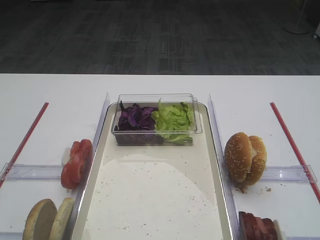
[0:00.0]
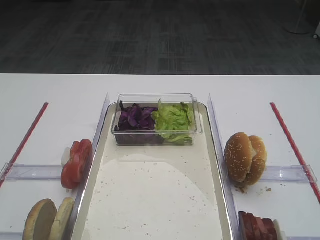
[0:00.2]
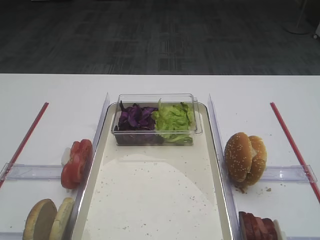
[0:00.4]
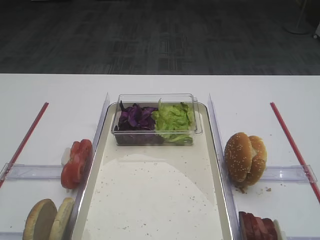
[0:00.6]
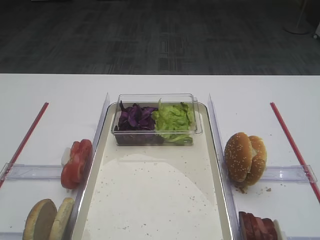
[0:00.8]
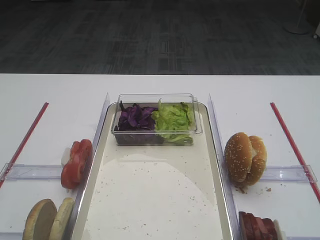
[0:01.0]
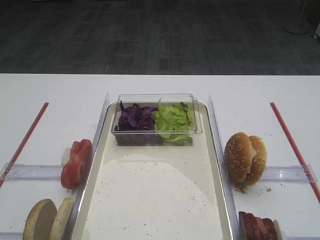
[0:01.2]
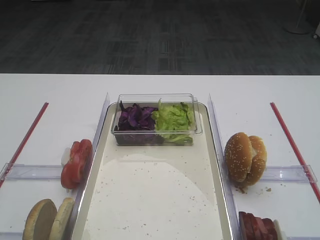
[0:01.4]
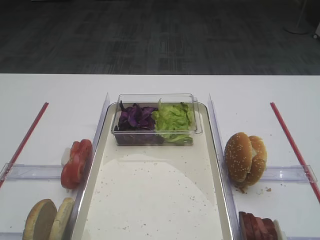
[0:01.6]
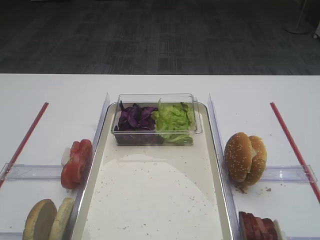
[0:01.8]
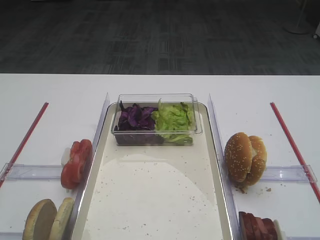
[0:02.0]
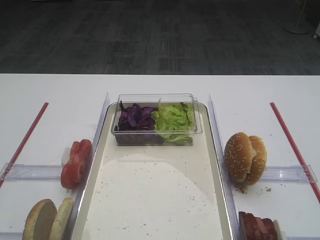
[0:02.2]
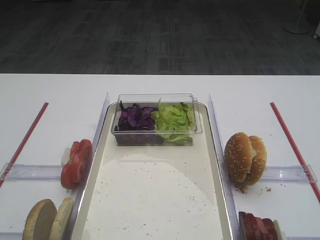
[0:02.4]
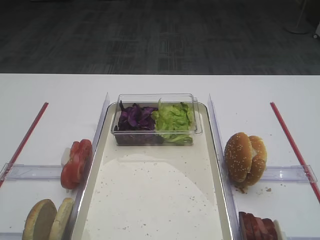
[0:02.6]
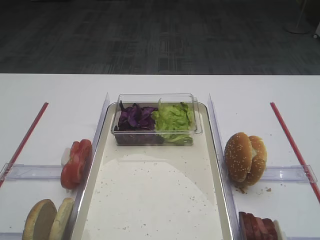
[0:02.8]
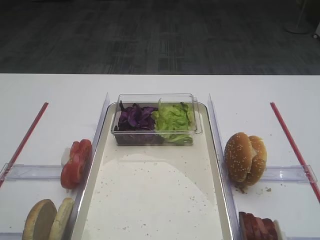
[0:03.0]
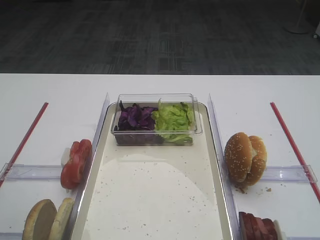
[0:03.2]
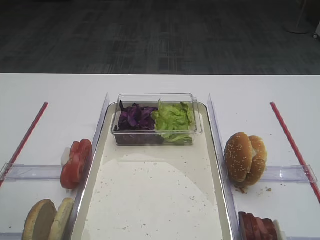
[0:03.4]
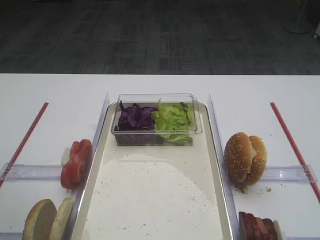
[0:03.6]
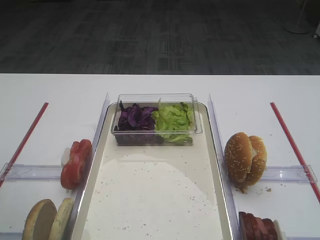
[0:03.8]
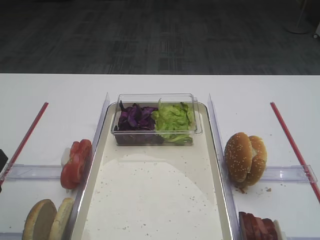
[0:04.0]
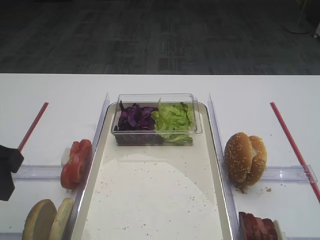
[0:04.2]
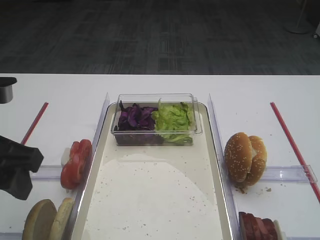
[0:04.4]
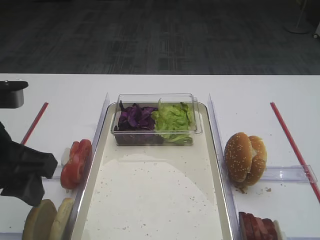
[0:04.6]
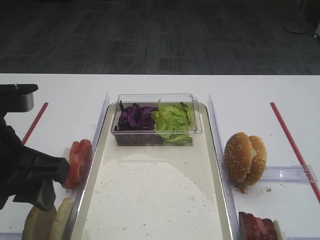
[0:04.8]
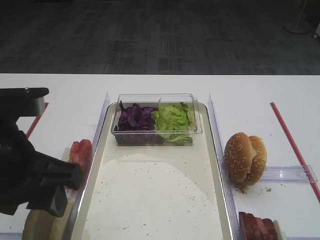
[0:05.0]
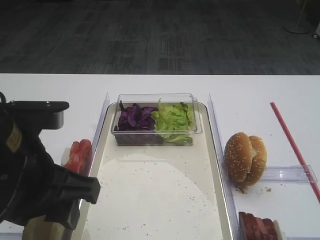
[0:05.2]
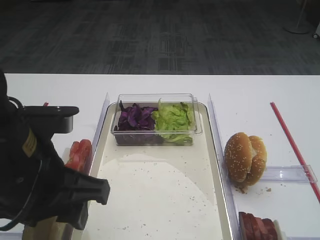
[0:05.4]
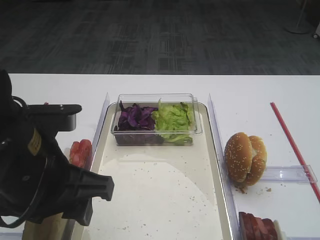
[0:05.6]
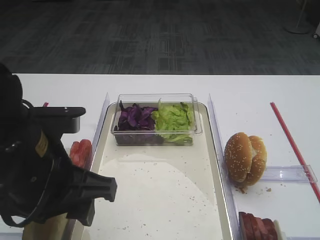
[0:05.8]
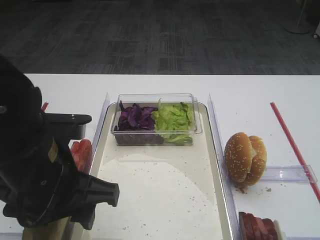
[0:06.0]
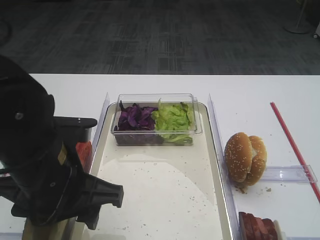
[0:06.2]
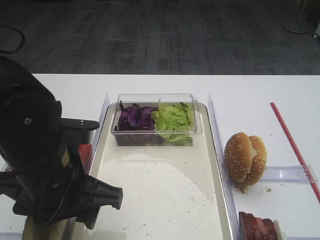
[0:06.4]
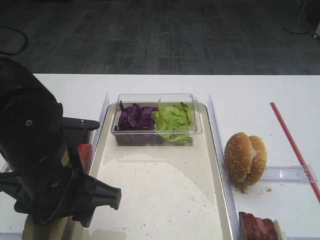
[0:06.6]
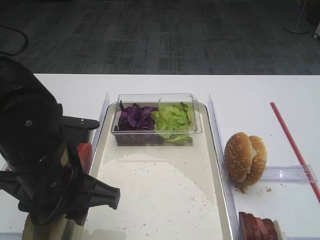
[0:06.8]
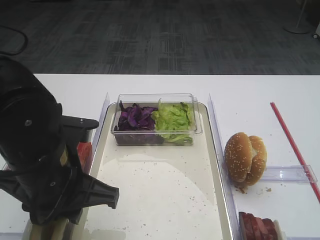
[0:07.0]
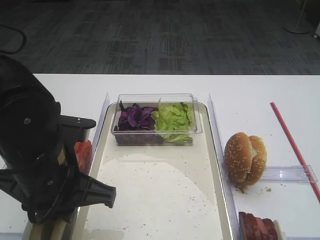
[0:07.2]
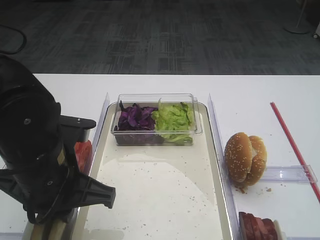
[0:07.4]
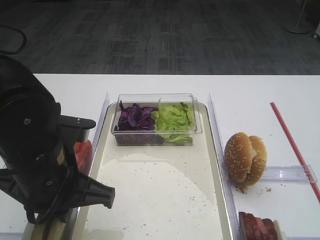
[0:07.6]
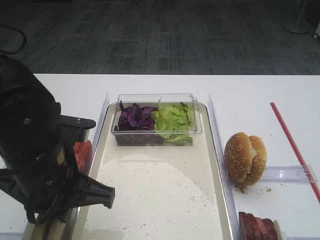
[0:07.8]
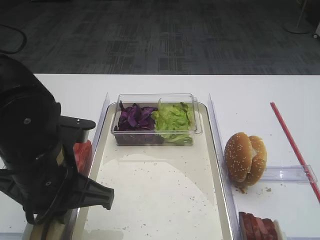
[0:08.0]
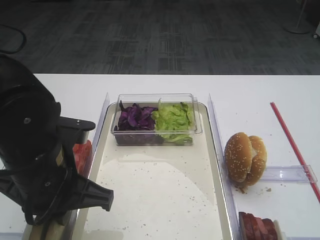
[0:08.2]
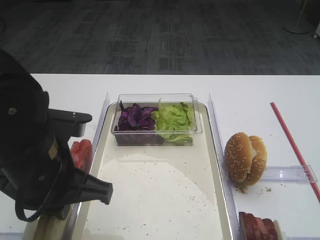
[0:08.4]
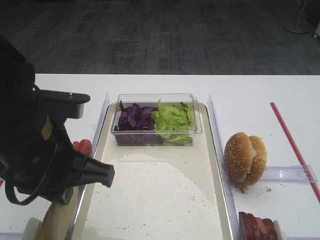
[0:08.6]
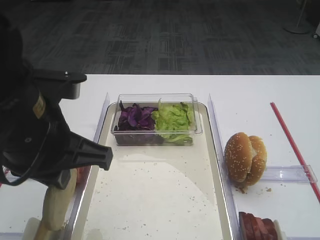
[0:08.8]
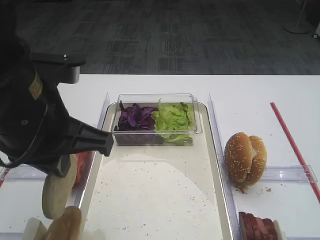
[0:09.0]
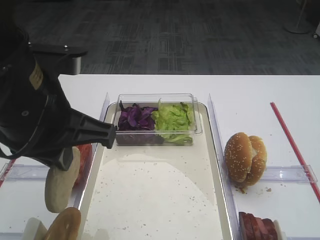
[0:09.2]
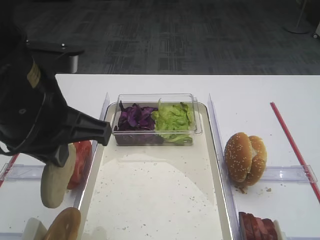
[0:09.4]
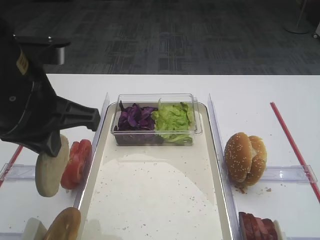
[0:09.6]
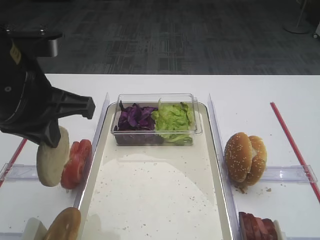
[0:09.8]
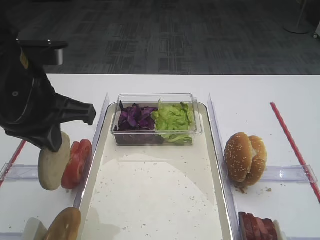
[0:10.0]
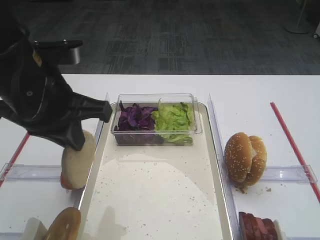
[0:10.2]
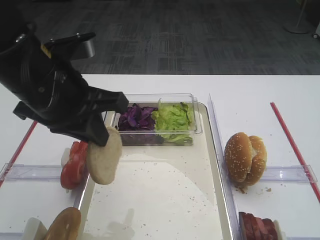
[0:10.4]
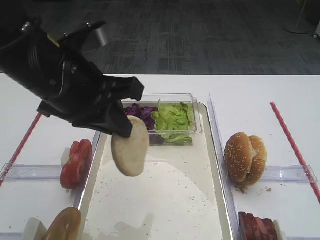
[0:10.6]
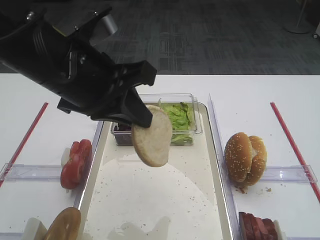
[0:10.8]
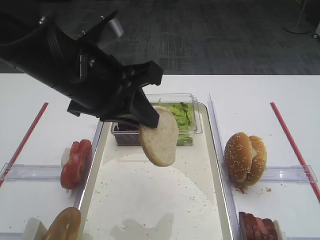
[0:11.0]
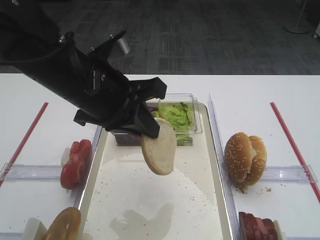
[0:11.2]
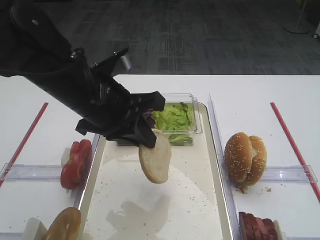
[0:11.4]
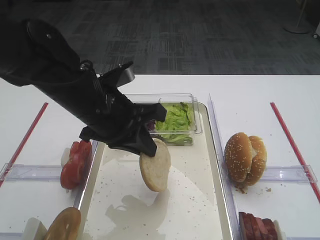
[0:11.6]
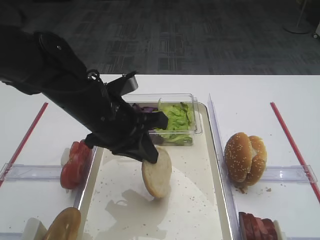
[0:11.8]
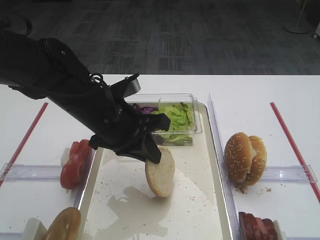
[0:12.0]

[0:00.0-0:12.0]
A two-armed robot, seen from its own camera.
Step, 0:00.0 to 0:08.6: Pick up the bread slice with the left gripper.
0:03.0 to 0:04.4: The left gripper goes some 10 cm to the right and forward.
0:04.4 to 0:06.0: The left gripper is displaced to the right by roughly 10 cm.
0:06.0 to 0:07.6: The left gripper closes.
0:07.6 to 0:09.0: The left gripper goes about 10 cm upward.
0:09.0 to 0:10.4: The grippers stay close to where they were, moving slightly.
0:10.4 to 0:12.0: The left gripper shifts approximately 10 cm downward and to the right.

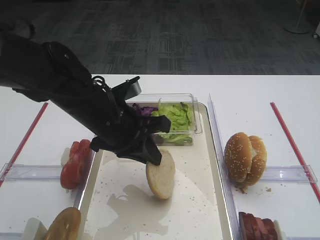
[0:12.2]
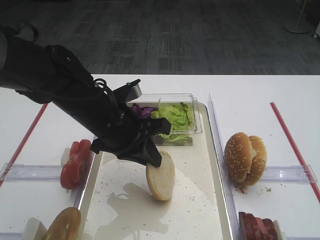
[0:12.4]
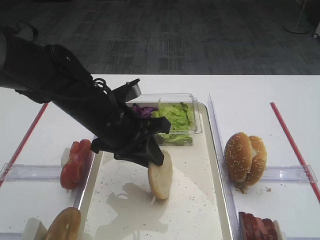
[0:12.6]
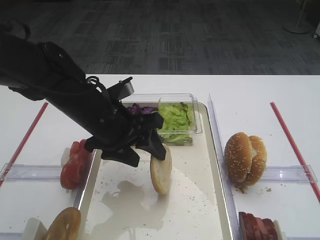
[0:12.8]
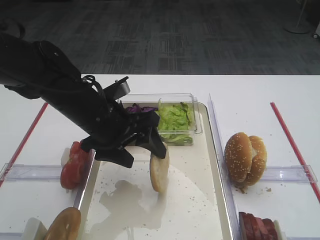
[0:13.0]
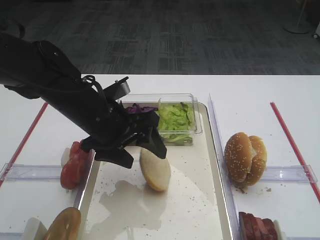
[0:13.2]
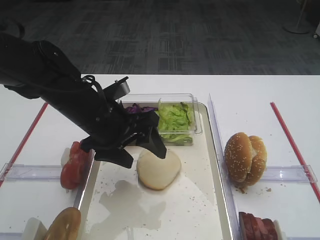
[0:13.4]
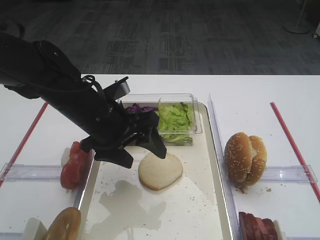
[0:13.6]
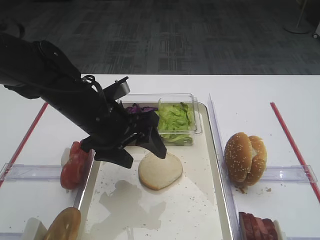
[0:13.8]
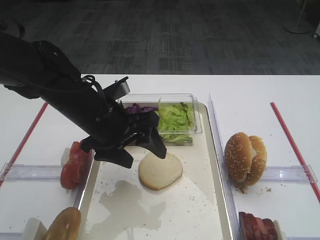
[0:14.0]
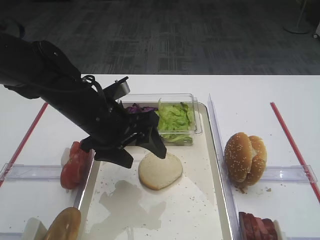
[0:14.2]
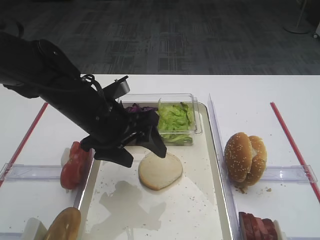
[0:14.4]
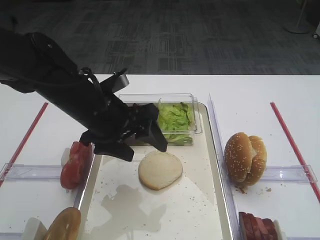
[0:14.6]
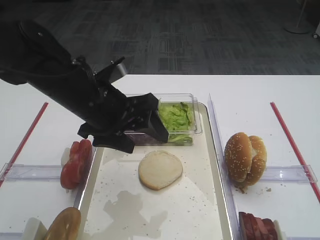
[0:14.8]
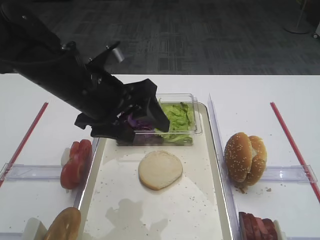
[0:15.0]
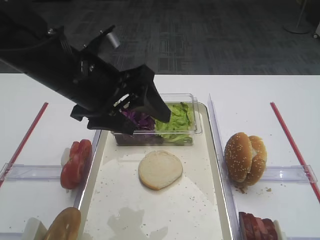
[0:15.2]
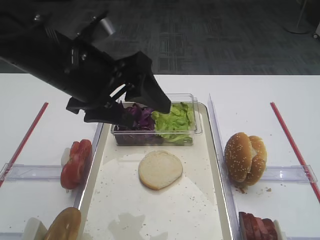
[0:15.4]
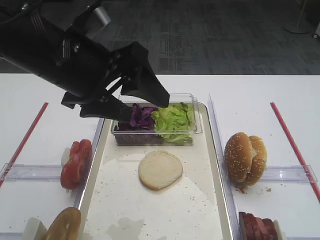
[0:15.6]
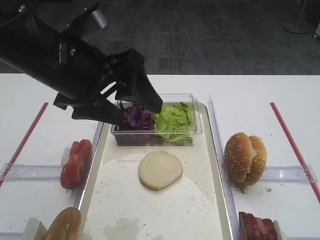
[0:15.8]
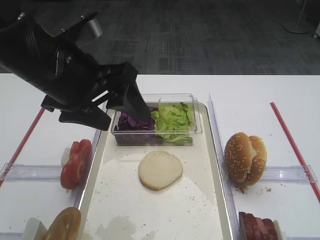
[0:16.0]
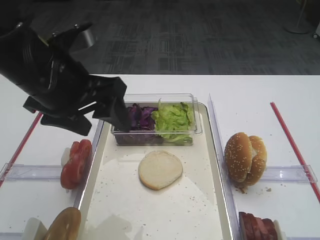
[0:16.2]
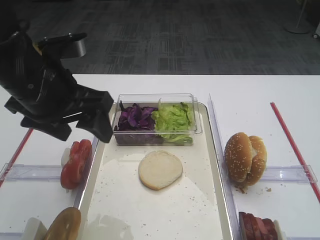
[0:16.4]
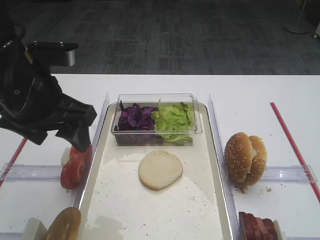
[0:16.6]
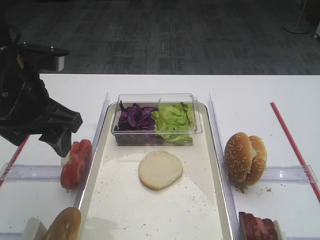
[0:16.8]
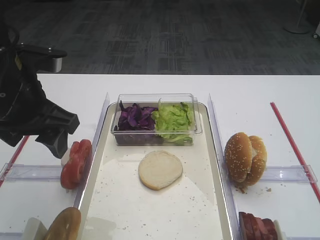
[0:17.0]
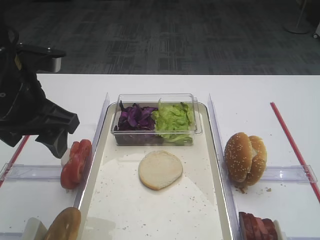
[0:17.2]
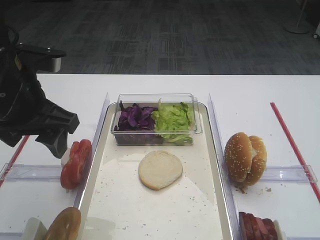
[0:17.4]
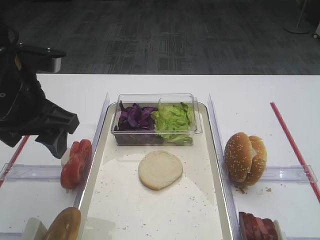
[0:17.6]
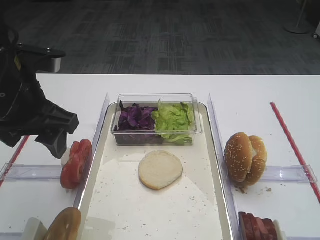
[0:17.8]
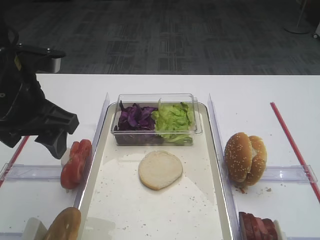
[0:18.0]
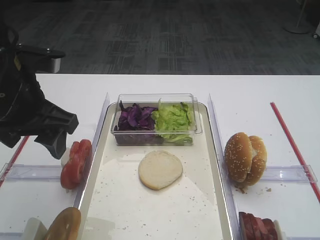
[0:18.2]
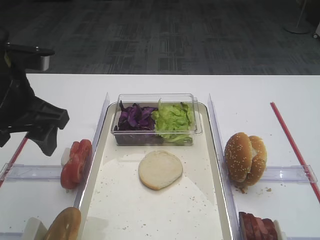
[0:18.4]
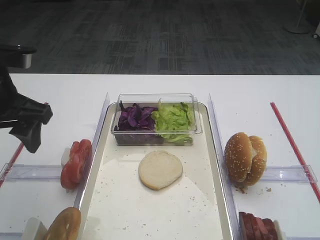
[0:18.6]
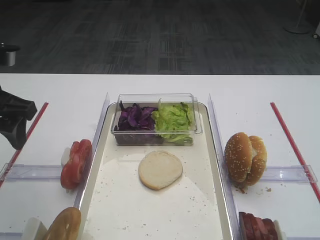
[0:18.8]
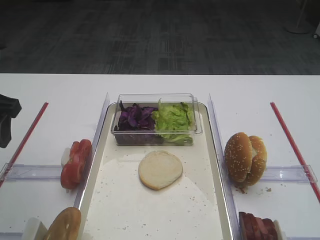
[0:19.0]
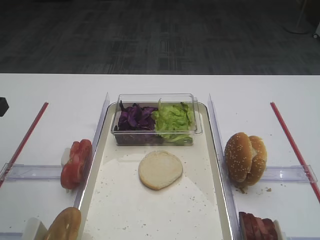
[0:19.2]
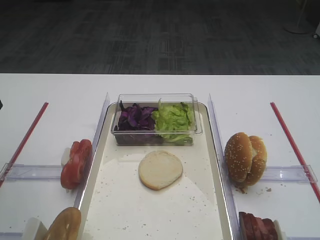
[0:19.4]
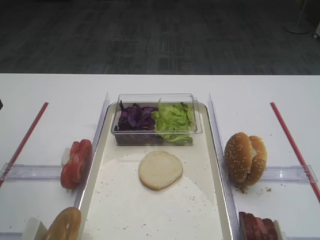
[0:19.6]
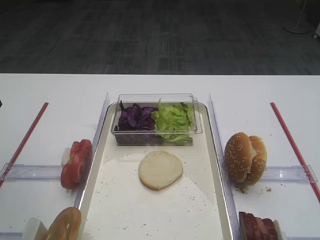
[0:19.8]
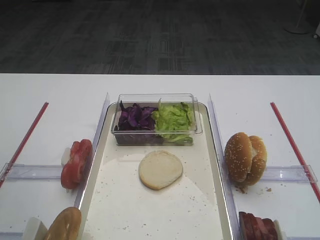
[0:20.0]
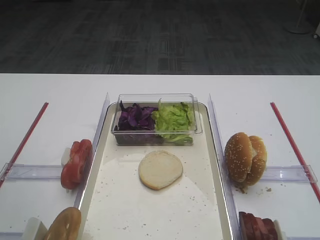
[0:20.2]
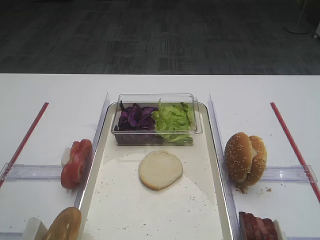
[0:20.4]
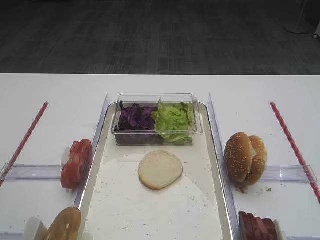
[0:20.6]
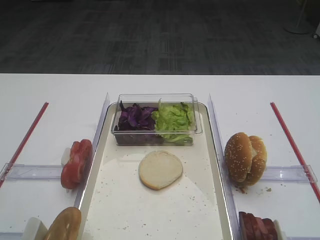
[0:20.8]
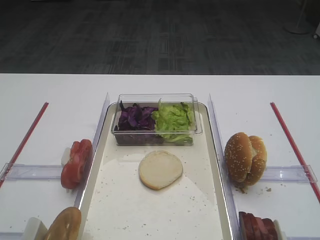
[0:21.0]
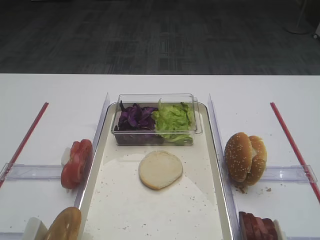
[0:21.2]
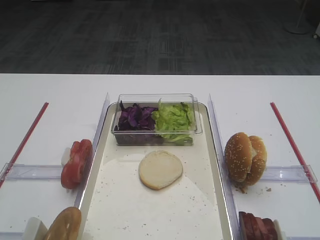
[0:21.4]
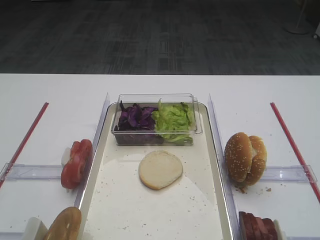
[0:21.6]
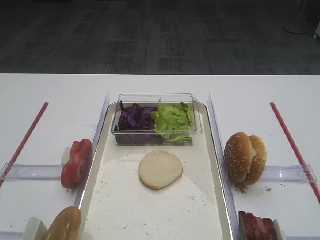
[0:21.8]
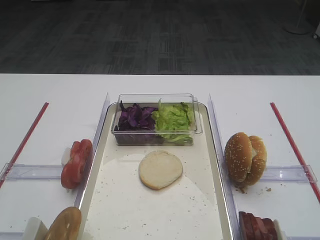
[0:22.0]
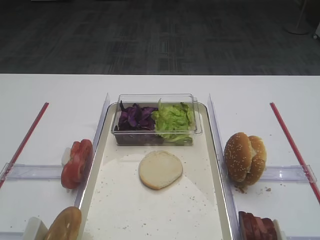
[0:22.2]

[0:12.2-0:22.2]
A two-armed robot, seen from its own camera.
Step, 0:12.2 to 0:16.6: Place the bread slice on the tray with the left gripper.
0:12.2 to 0:13.6: The left gripper opens.
0:13.6 to 0:15.0: The left gripper heads upward, covering about 5 cm.
0:15.0 to 0:16.4: The left gripper moves some 5 cm.
0:18.0 to 0:19.4: The left gripper heads to the left, covering roughly 10 cm.
